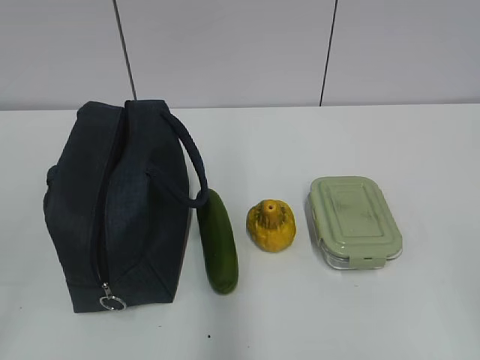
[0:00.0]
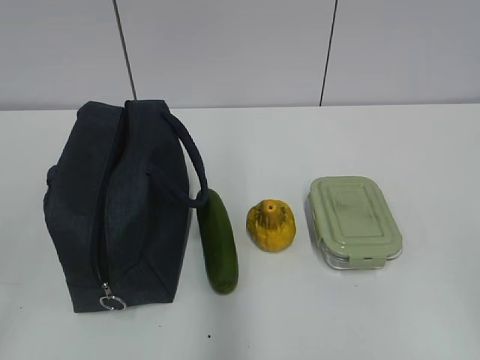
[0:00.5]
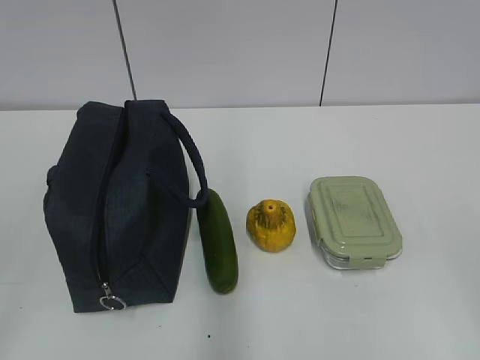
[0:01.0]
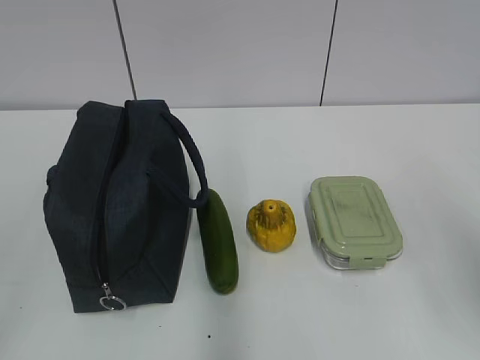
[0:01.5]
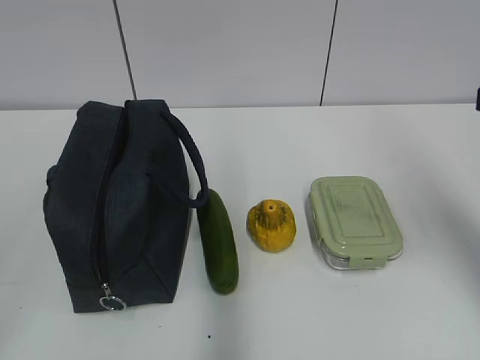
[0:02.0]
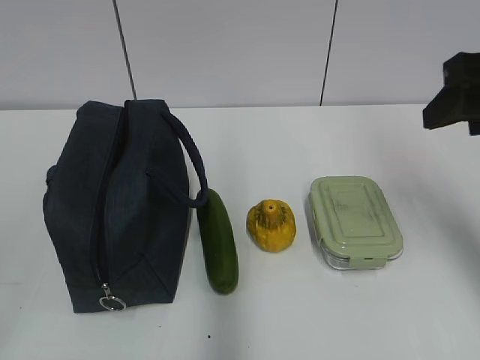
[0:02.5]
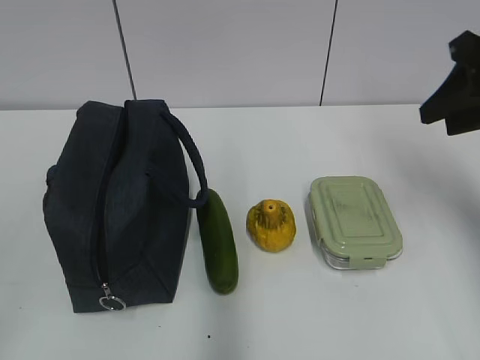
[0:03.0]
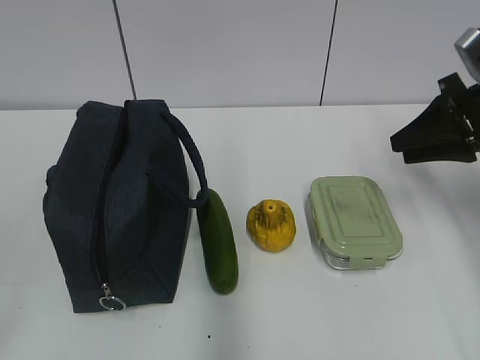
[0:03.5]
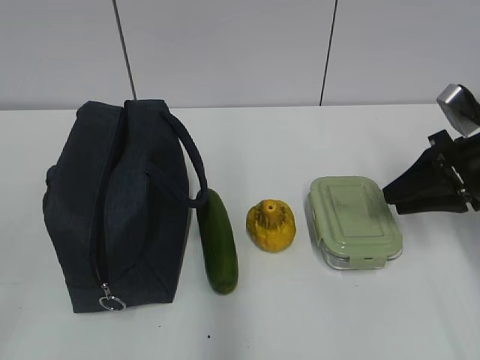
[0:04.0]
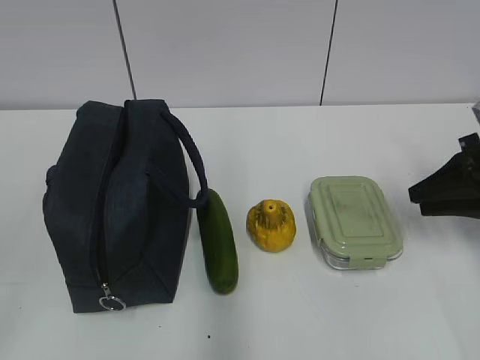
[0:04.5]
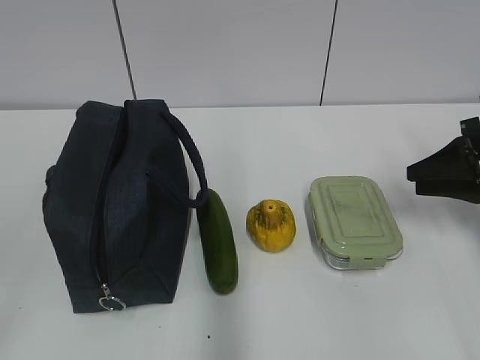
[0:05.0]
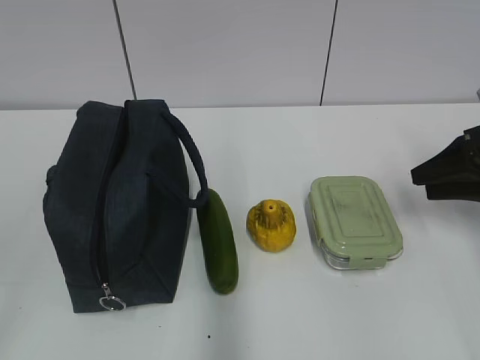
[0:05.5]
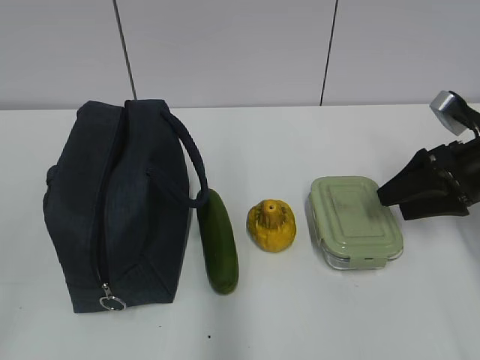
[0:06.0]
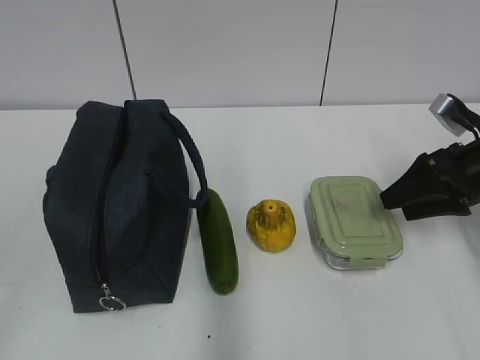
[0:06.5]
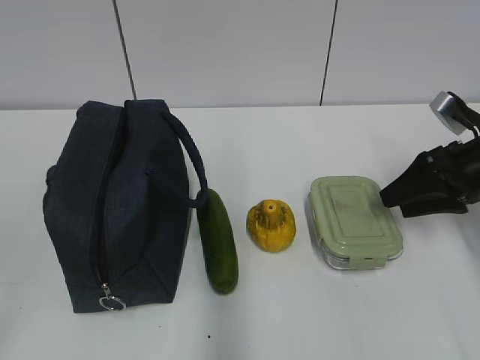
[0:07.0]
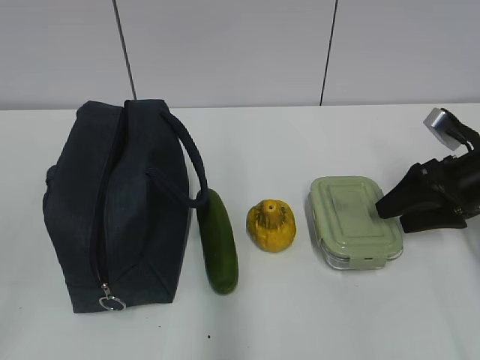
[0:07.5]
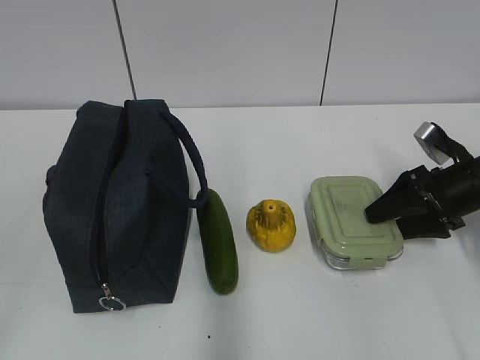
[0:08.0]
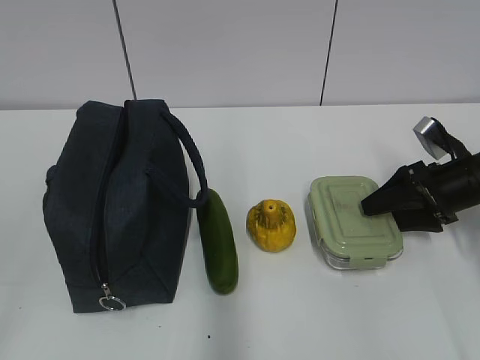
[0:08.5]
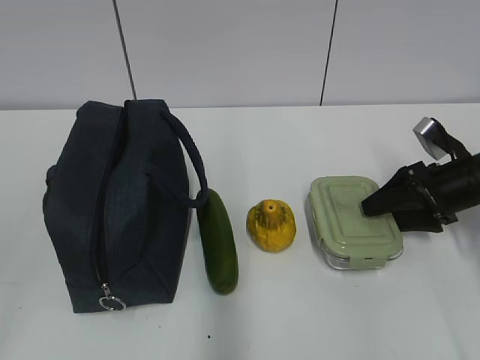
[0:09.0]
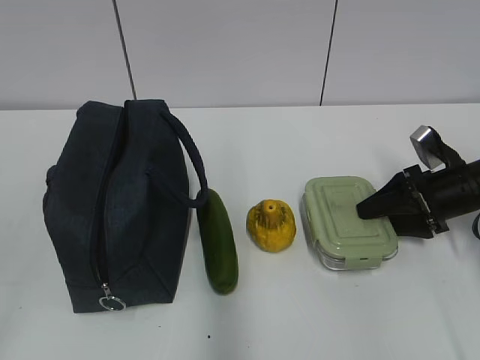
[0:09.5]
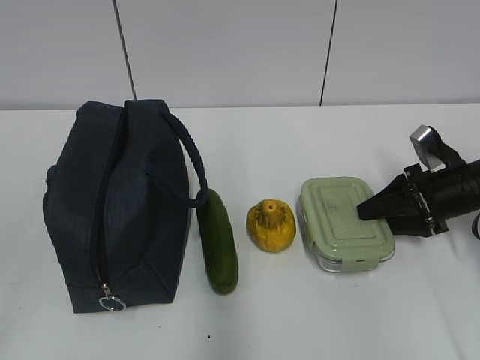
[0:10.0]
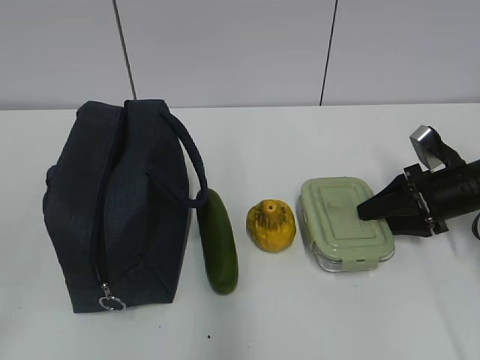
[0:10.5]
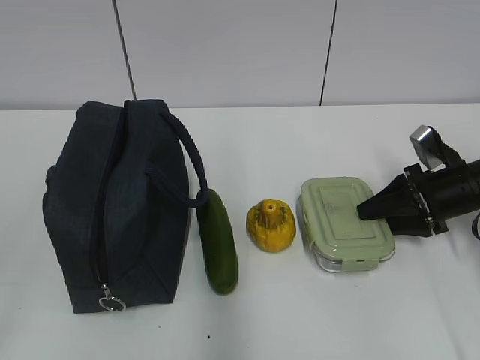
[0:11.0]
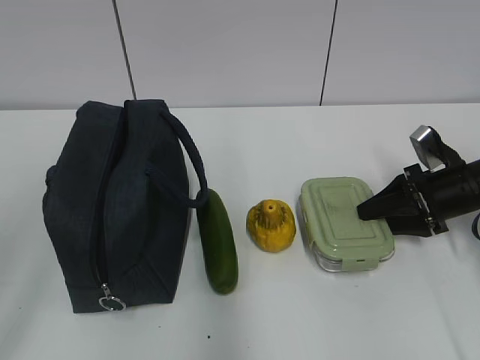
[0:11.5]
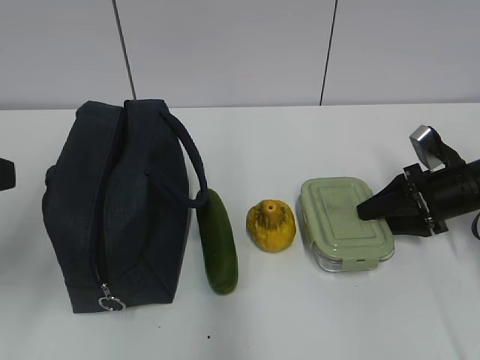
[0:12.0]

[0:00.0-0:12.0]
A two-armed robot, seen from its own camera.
Step, 0.0 to 9.0 s: Grab the lunch box with your right hand.
2.0 to 4.0 s: The right gripper moves downward and forward, some 20 cm, and closes its fingers.
4.0 to 6.0 s: The right gripper opens its fingers.
6.0 to 8.0 s: The right gripper ends up roughly 5 cm from where it was.
8.0 to 10.0 s: The grippers stay close to where they were, moving slightly.
10.0 to 12.0 s: The left gripper travels forward by some 15 cm.

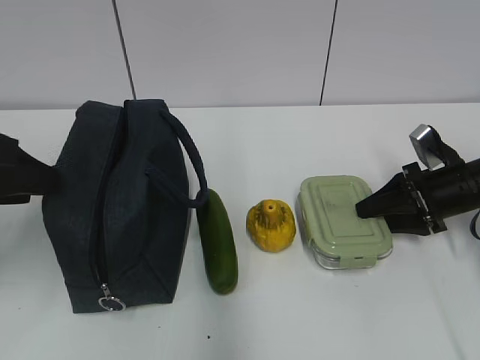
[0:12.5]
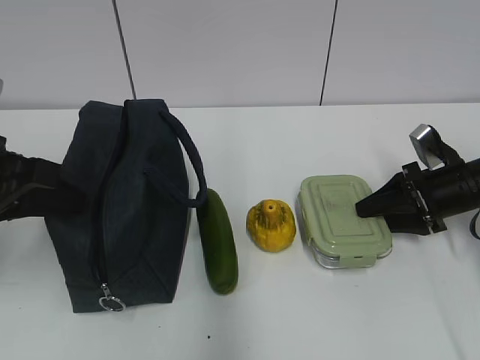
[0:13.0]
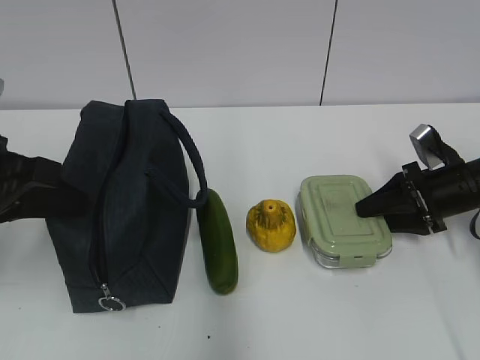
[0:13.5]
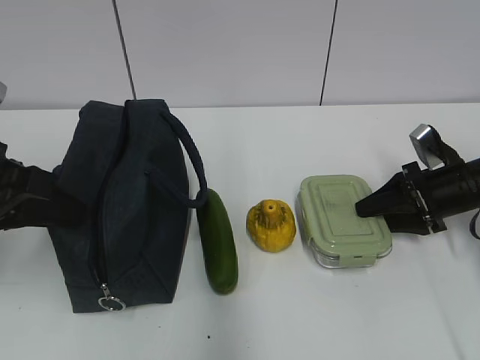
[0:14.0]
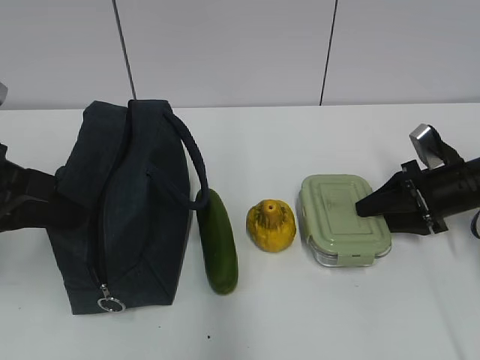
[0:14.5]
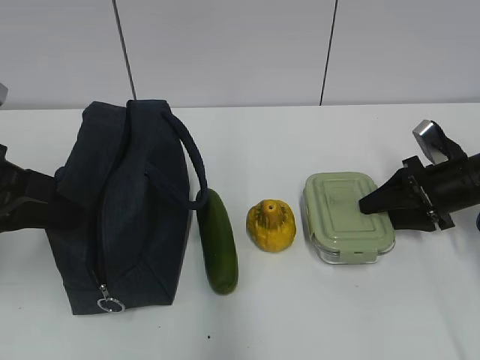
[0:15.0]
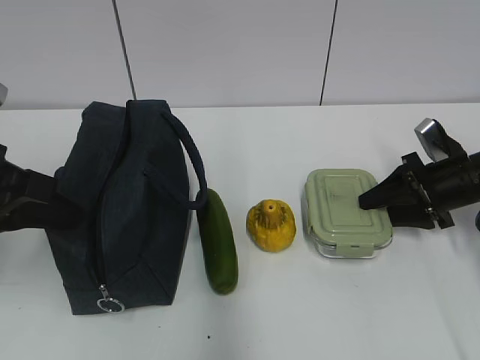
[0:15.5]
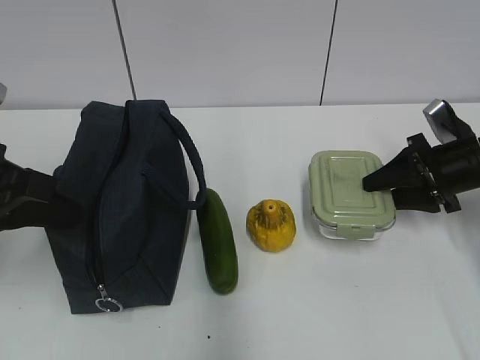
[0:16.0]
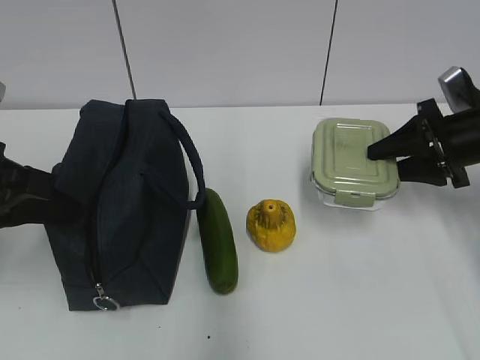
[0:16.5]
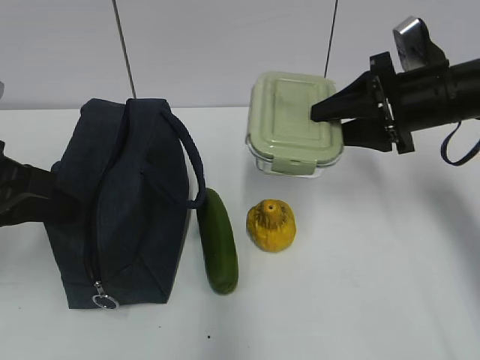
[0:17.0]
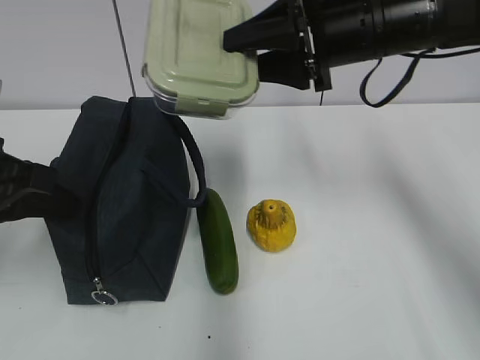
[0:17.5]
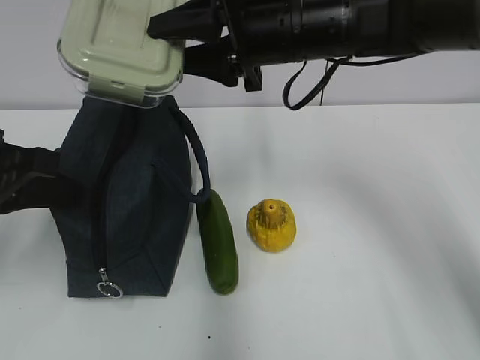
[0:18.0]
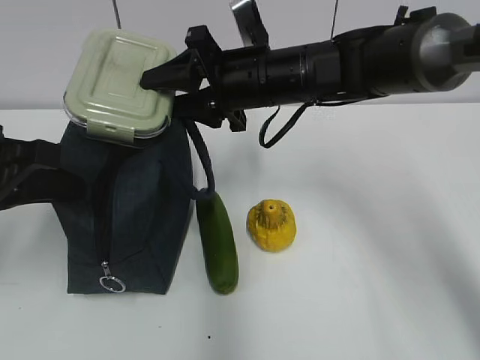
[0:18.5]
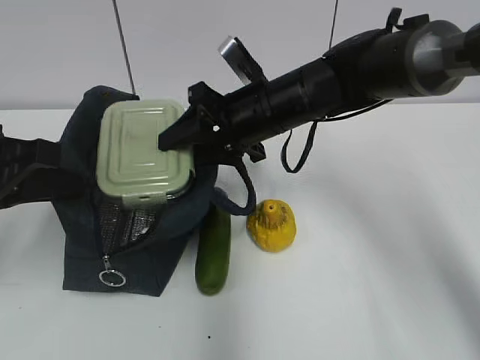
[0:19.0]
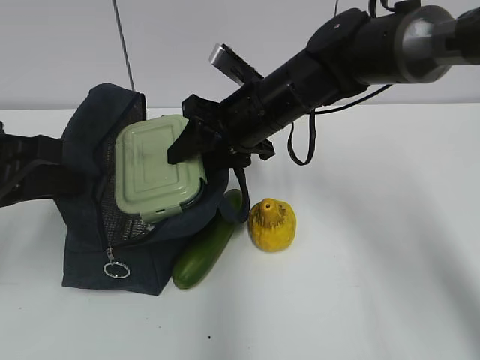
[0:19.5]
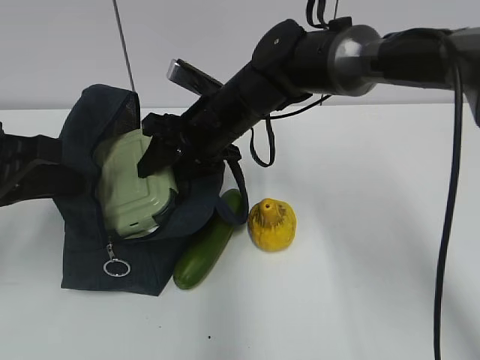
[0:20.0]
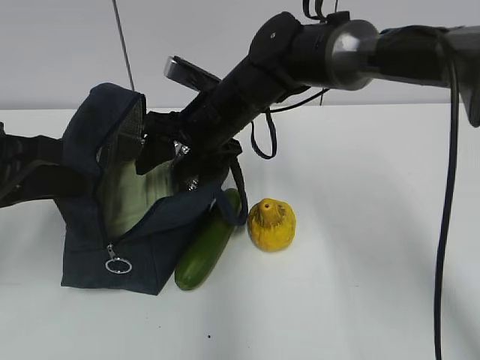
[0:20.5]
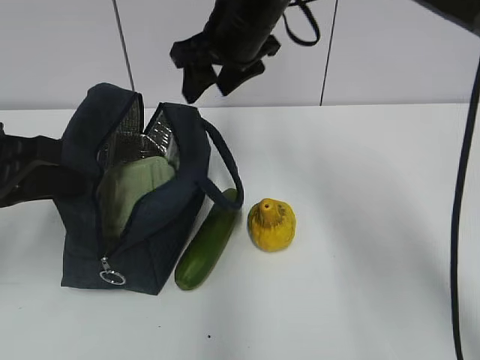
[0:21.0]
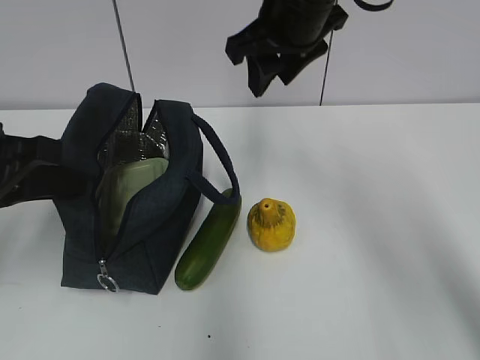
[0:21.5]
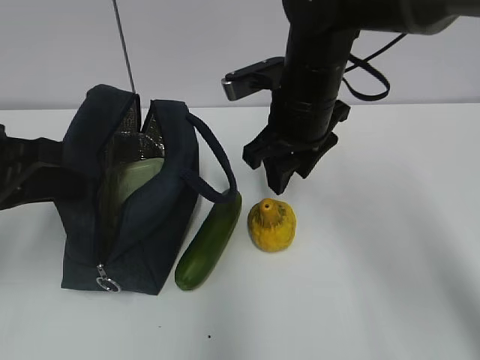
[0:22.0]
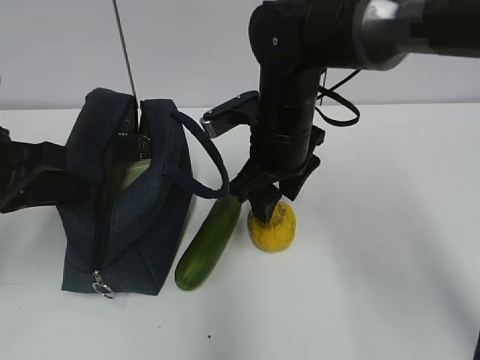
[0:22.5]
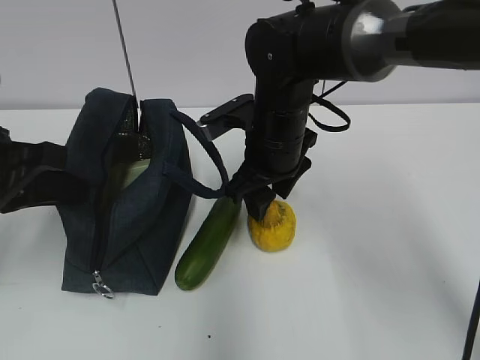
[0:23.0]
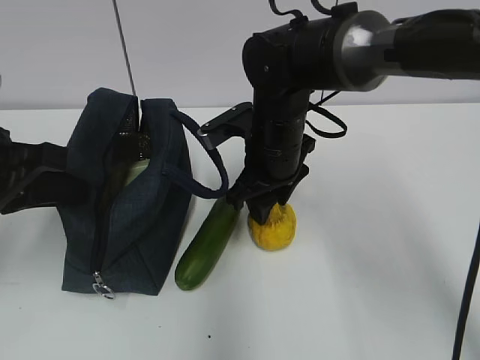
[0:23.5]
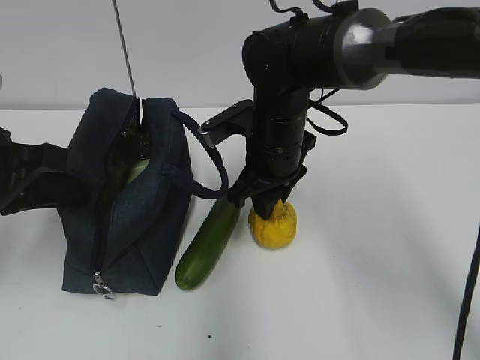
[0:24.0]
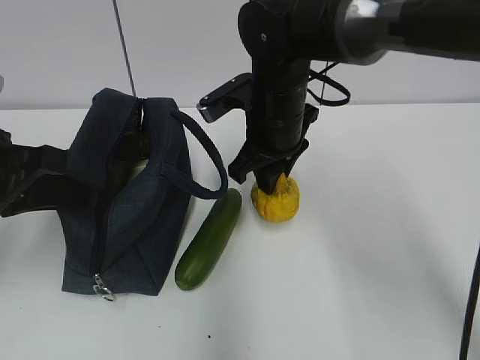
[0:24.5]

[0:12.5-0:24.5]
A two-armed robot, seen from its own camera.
Step, 13.0 to 20.0 s: Place it into the bag with your right hand.
Step, 20.5 to 24.0 s: Grab the pear with your right hand.
12.5 to 14.5 s: The left gripper closes up.
14.5 to 16.5 s: The right gripper is displaced upward by roughly 10 cm.
16.5 to 18.5 s: The right gripper travels to the left by about 25 cm.
18.5 to 20.5 s: The right gripper changes place by some 5 cm.
20.5 to 22.5 s: The right gripper is displaced to the right by about 5 cm, and reaches roughly 15 cm upward, then returns.
22.5 to 24.5 s: The right gripper closes up.

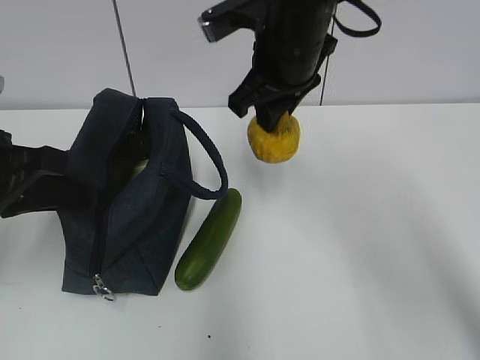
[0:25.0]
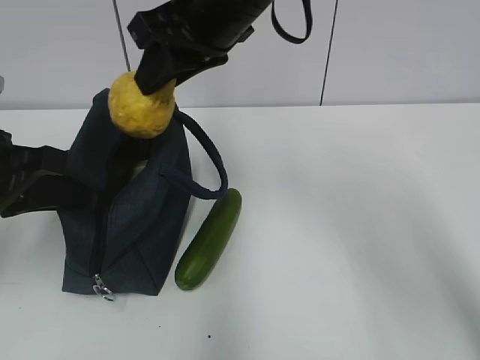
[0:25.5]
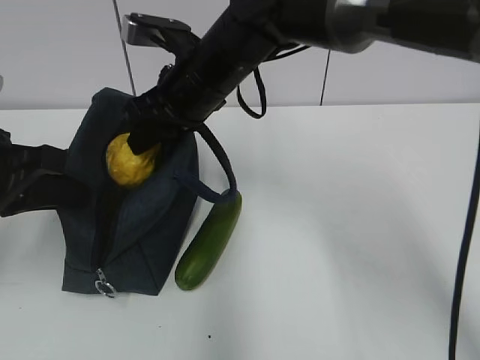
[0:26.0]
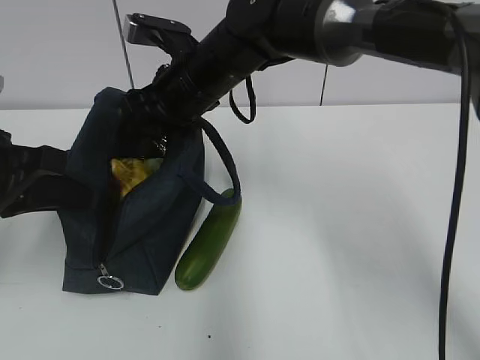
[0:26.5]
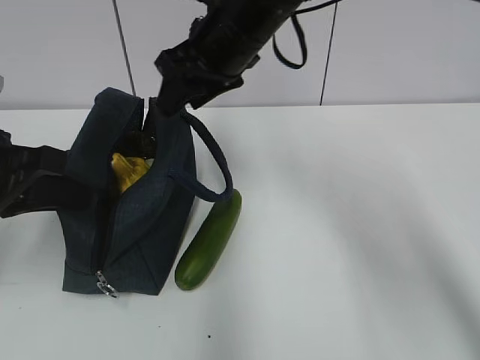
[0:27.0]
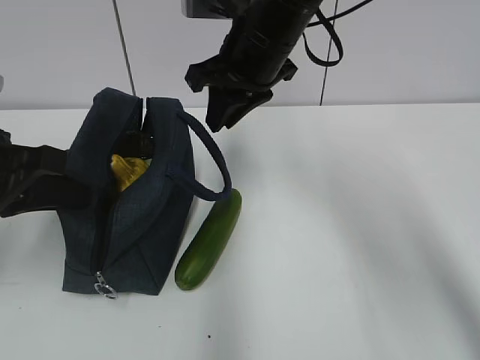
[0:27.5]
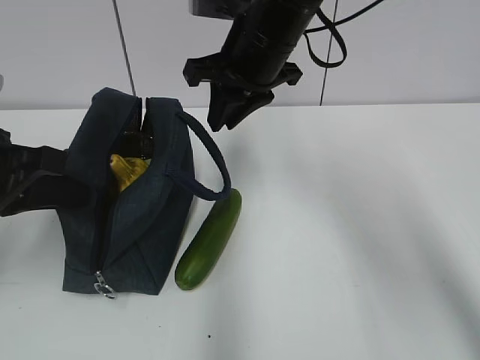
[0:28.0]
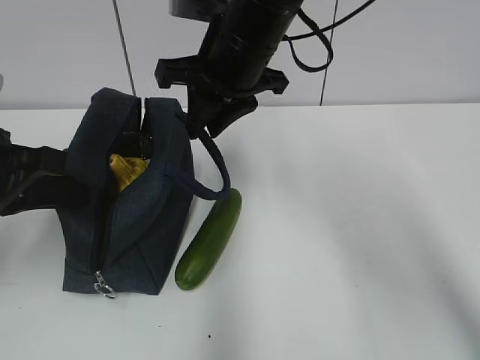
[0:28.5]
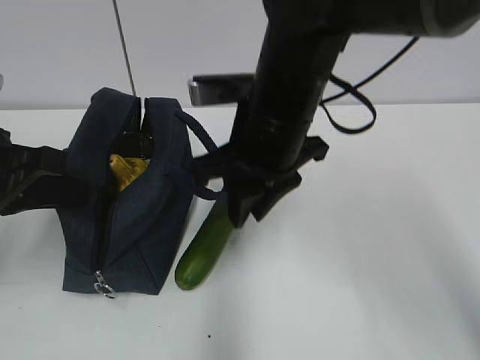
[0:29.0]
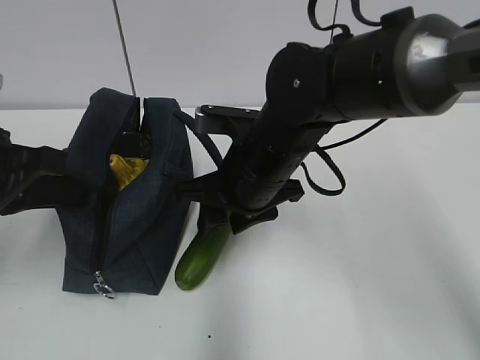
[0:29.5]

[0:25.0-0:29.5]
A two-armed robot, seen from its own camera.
Step, 25.0 to 26.0 s: Place it into the bag with your right hand.
25.0 to 27.0 s: The right gripper moves up and down over roughly 10 cm, changing direction 2 times.
27.0 to 29.5 s: The right gripper is displaced downward and backward by about 15 cm.
